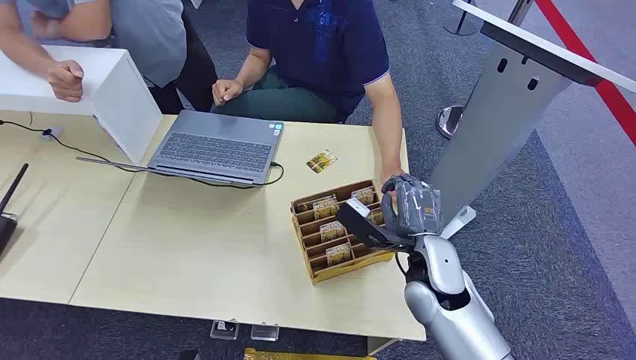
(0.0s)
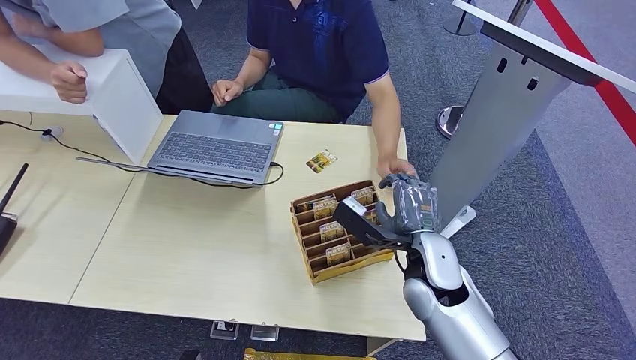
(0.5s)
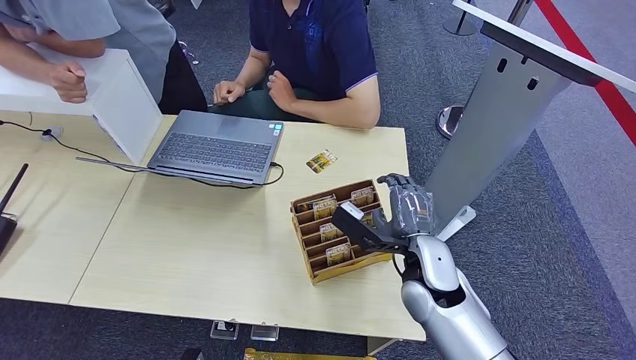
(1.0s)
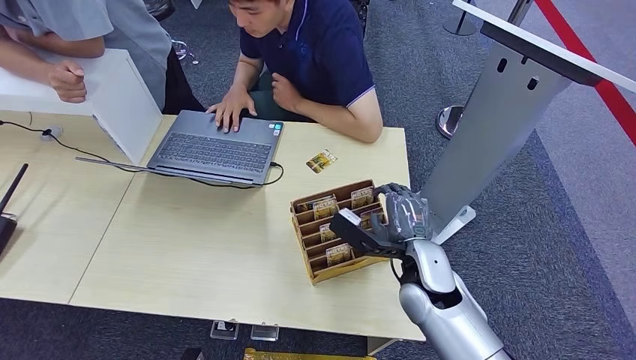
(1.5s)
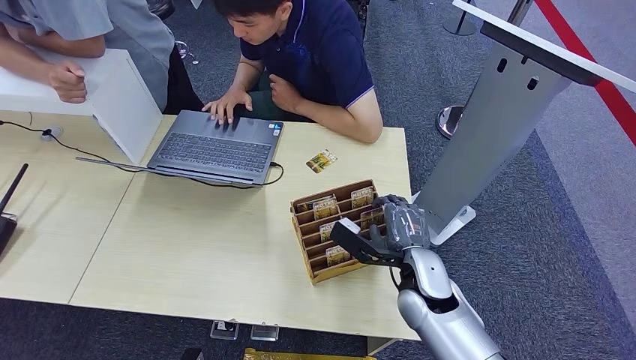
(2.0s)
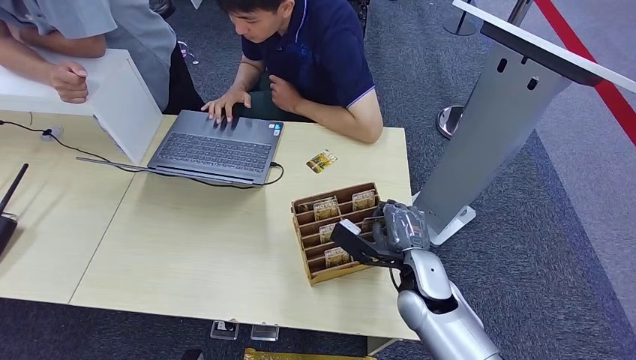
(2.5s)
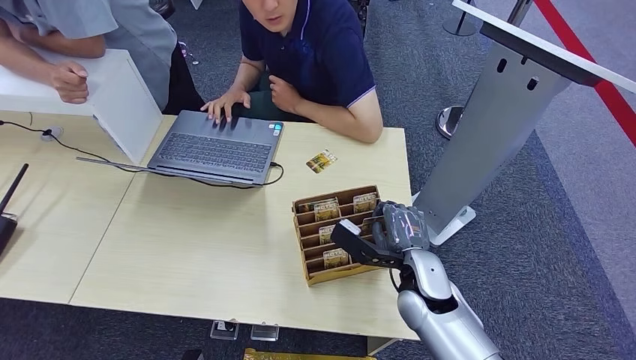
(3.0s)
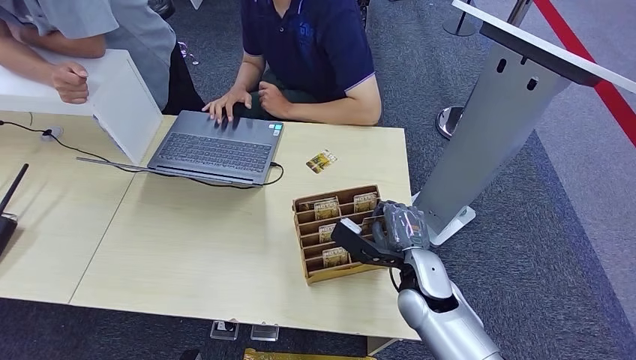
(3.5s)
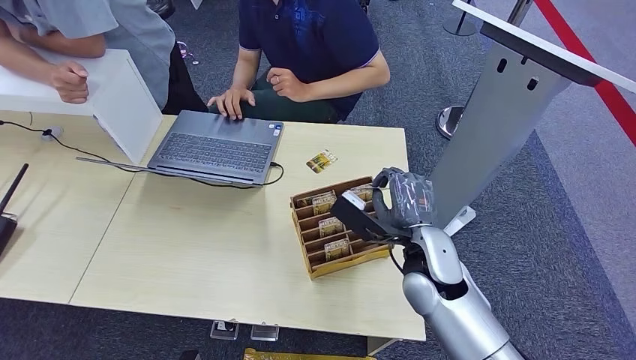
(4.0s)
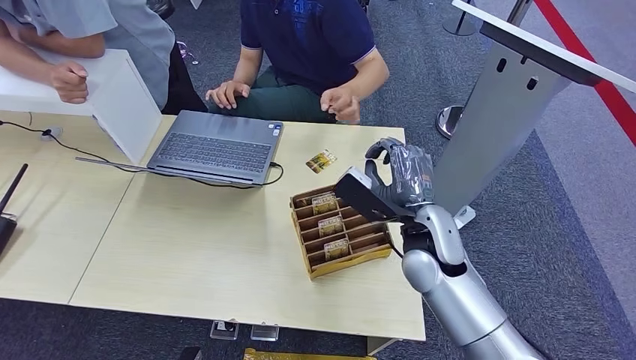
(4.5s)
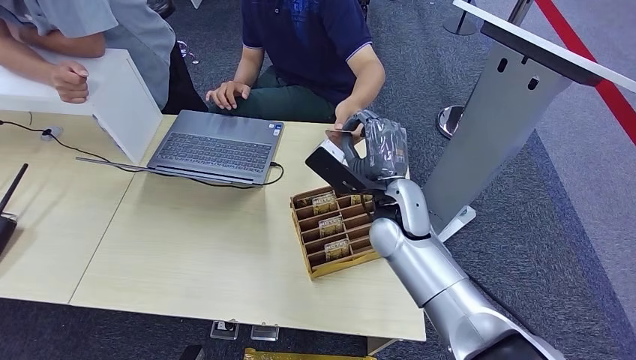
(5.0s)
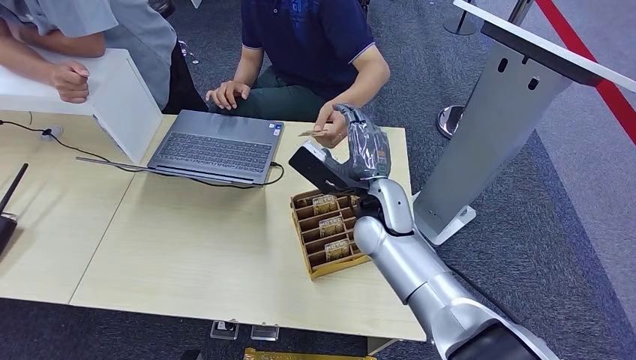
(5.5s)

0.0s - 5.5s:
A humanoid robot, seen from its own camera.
Step, 0.0s - 4.0s: Pick up the key card from the card box.
Step, 4.5s - 5.5s: Hand the key card to the target.
2.0s - 3.5s: Both hands stay put.
3.5s - 5.5s: The right hand goes about 15 cm upward, to the left and forward.
